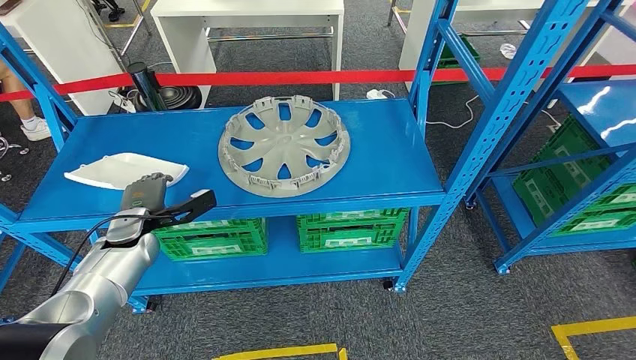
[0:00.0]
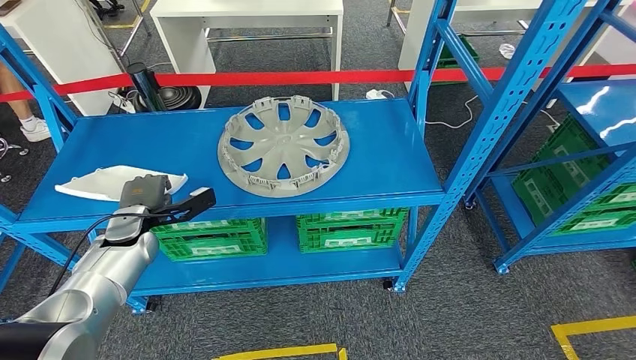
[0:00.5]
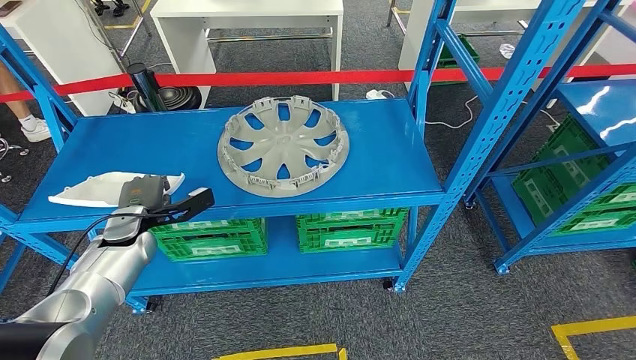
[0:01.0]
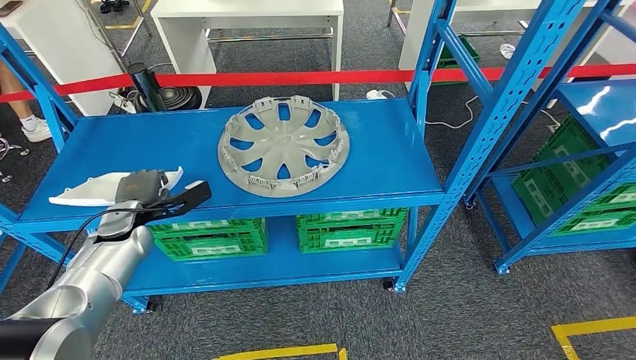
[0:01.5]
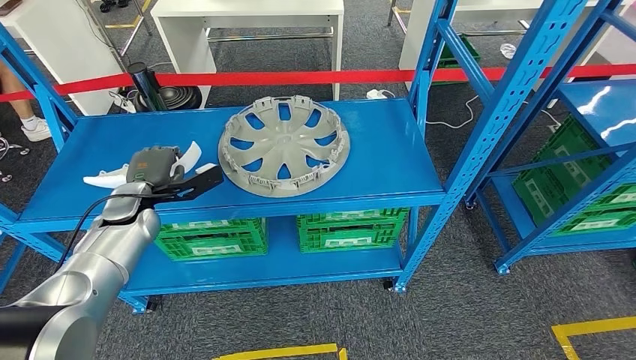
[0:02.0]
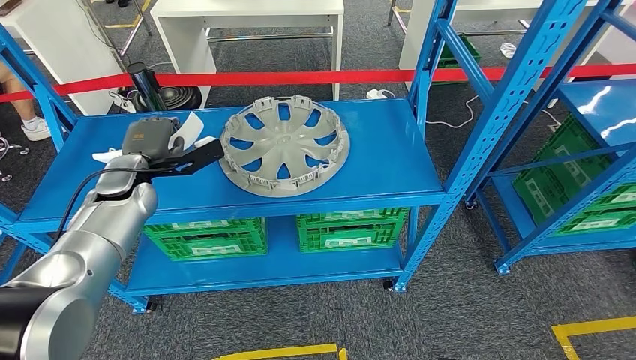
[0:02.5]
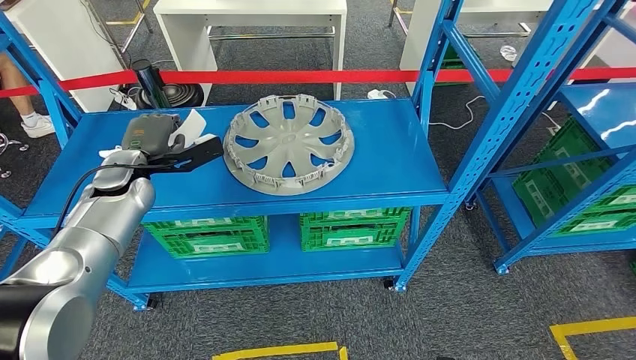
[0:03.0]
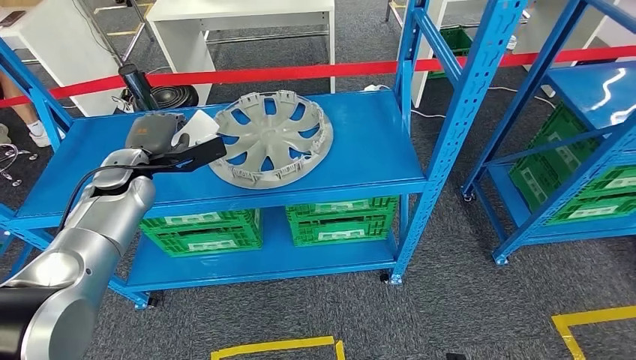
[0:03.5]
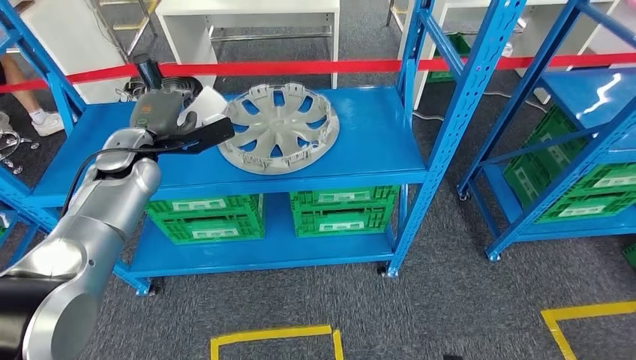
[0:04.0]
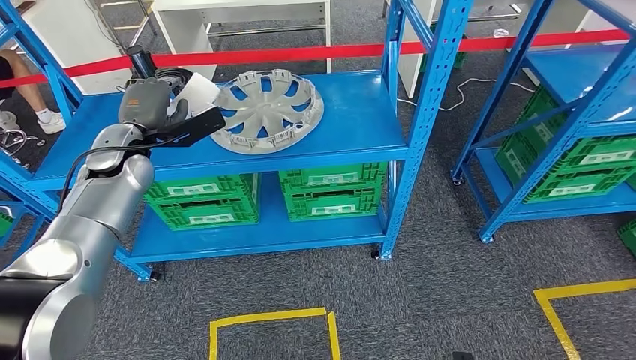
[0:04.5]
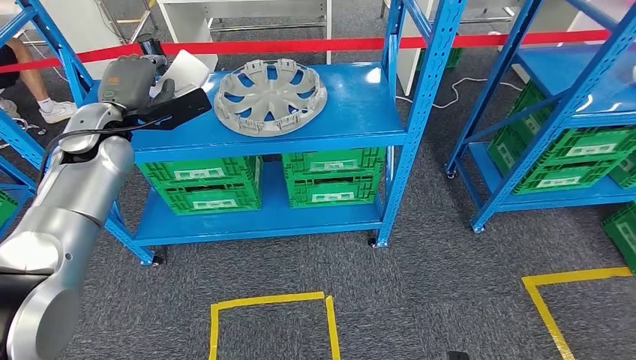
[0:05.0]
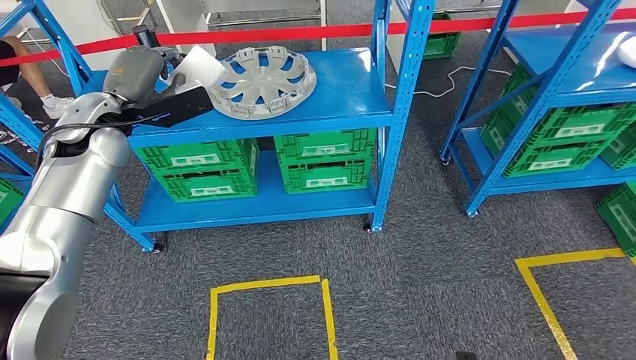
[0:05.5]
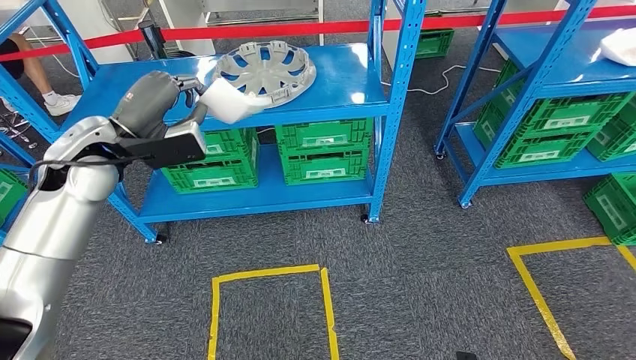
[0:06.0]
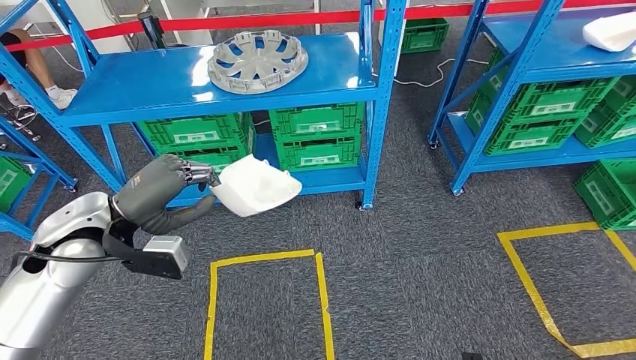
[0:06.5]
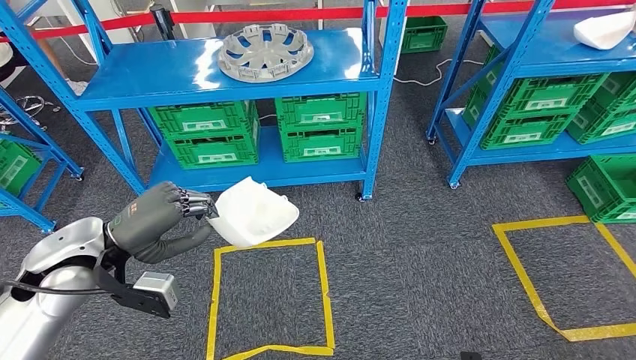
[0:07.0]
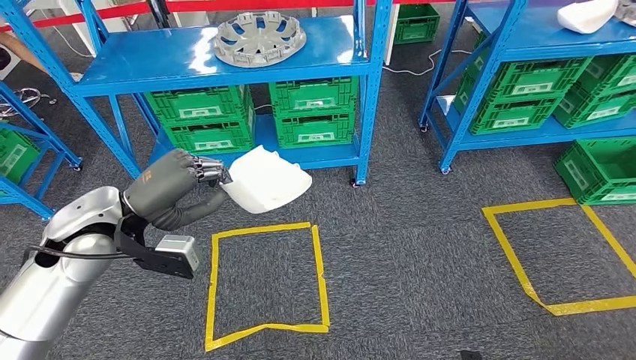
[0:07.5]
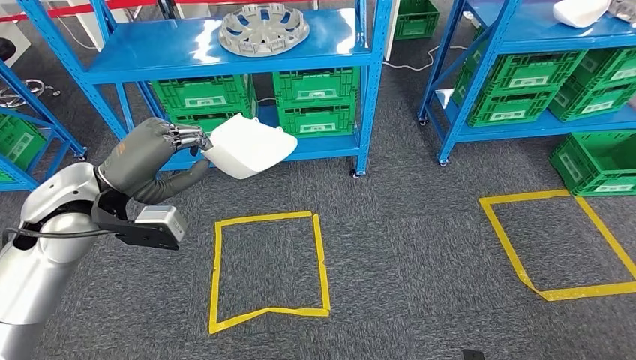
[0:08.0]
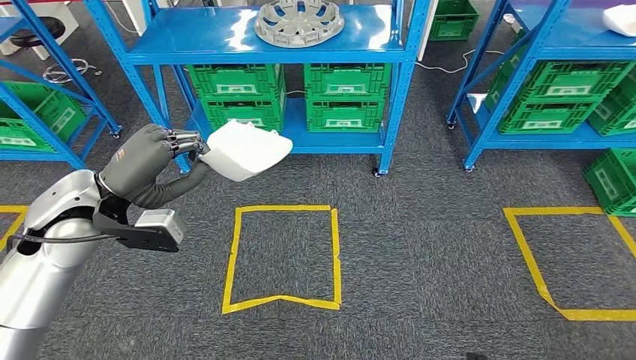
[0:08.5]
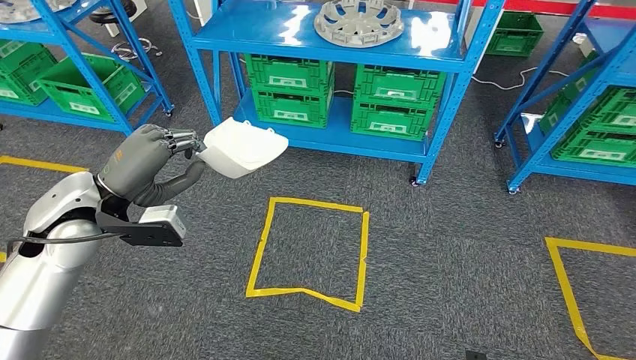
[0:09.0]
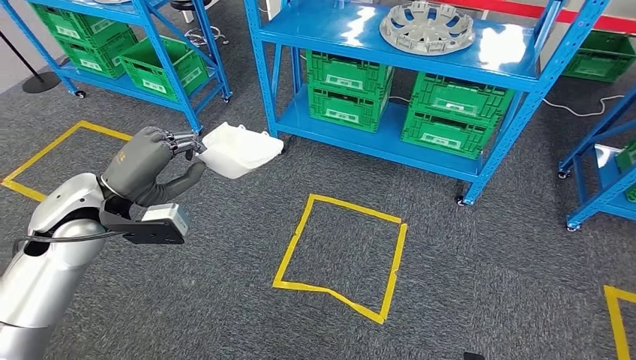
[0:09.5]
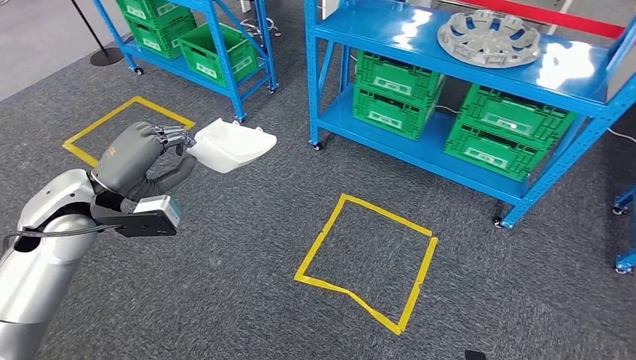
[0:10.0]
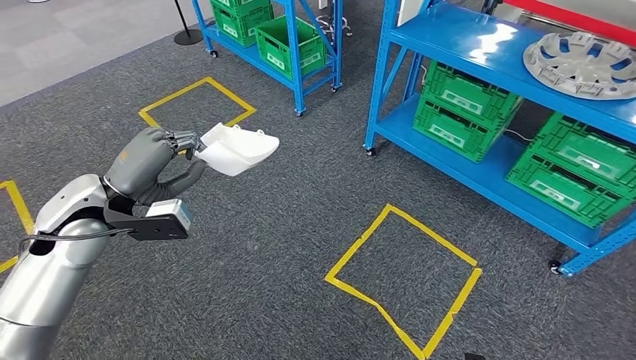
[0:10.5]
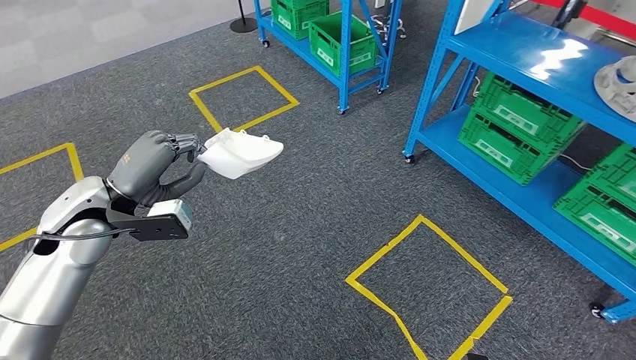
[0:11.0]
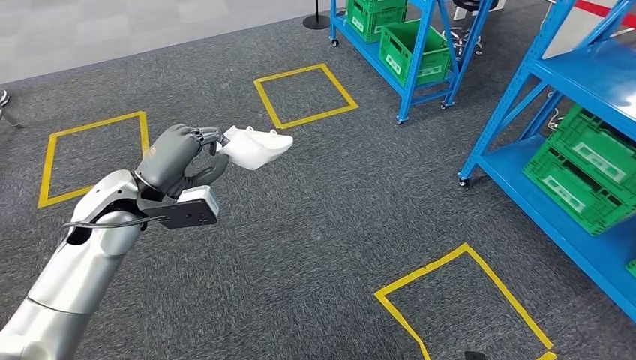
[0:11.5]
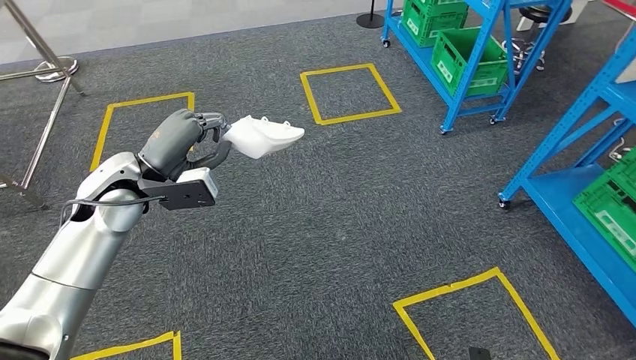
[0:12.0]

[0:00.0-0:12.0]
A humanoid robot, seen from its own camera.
Step, 0:00.0 to 0:03.0: Pick up the small component from the shelf.
0:00.0 to 0:02.0: The left hand changes place by some 5 cm.

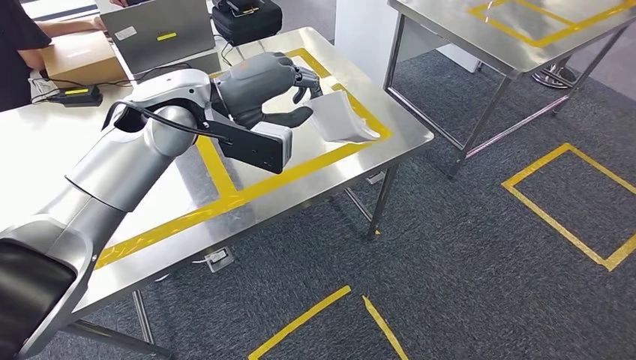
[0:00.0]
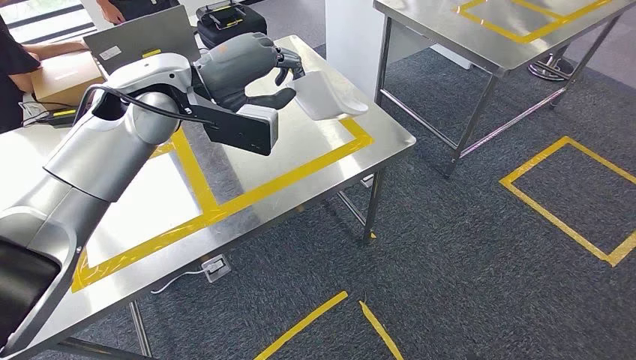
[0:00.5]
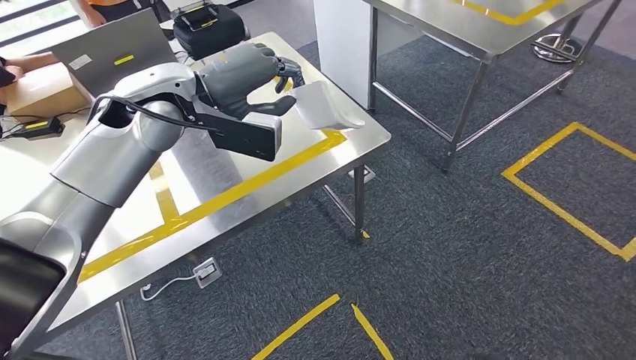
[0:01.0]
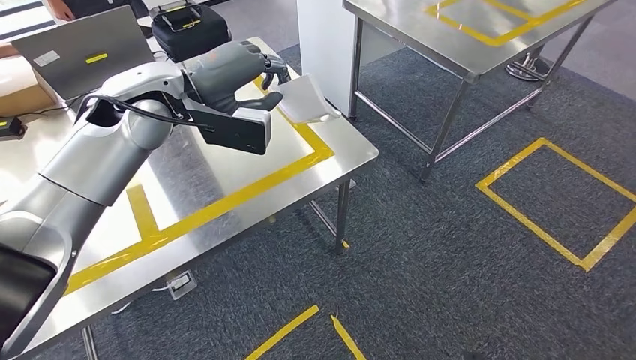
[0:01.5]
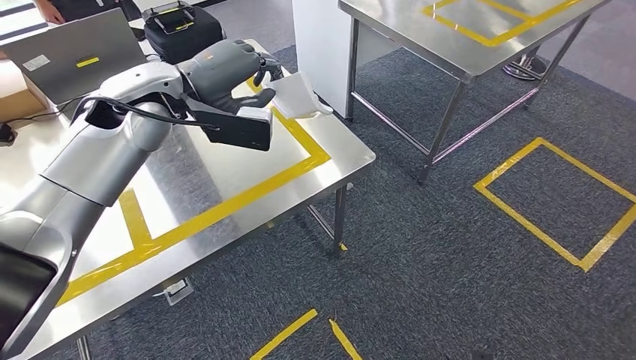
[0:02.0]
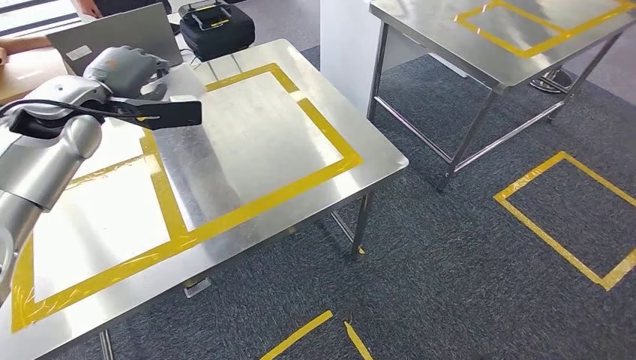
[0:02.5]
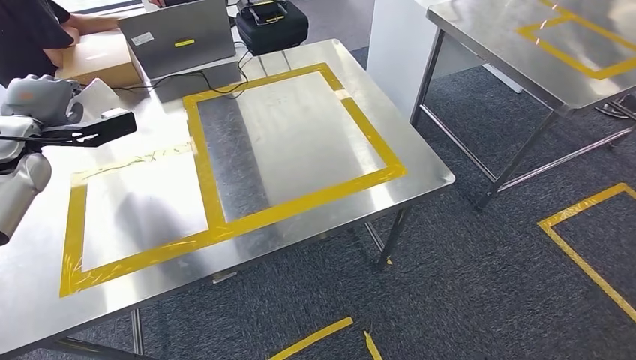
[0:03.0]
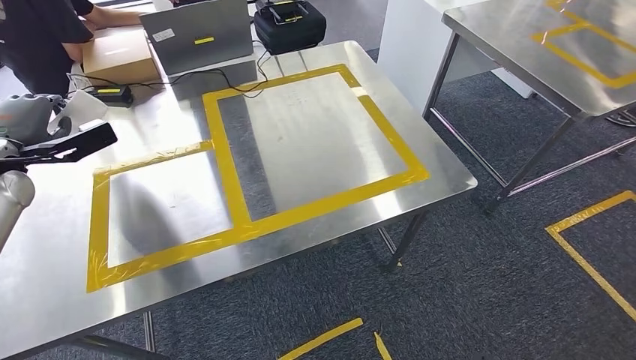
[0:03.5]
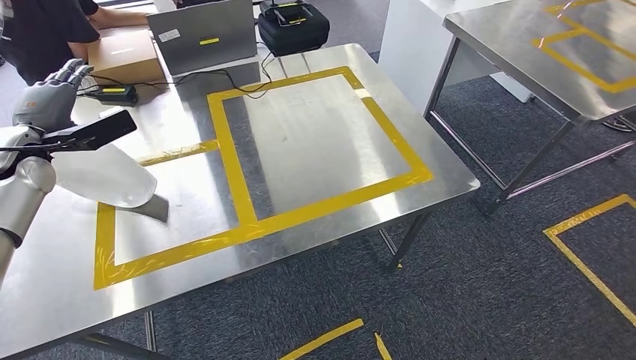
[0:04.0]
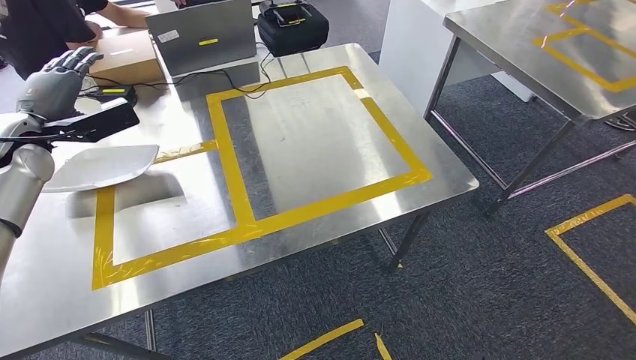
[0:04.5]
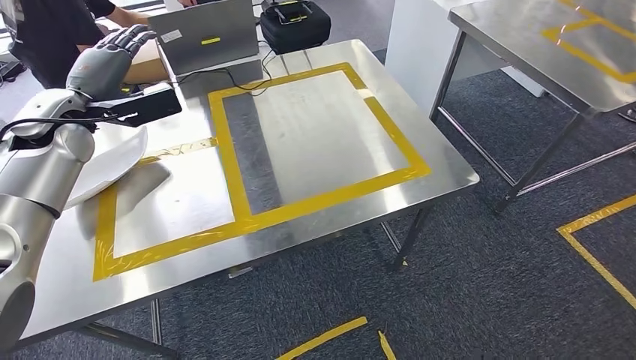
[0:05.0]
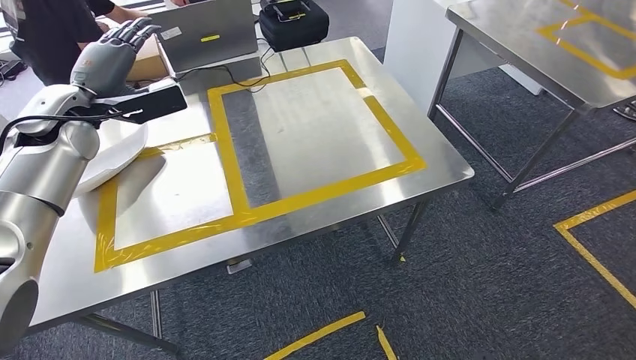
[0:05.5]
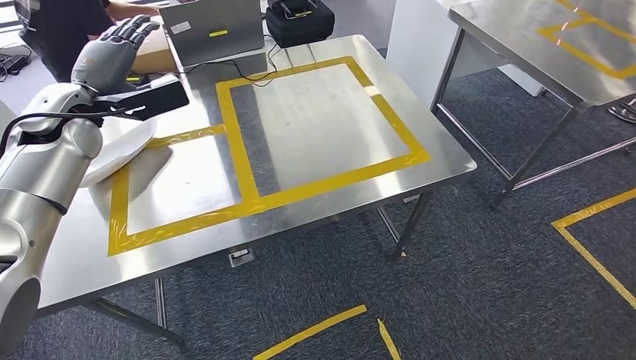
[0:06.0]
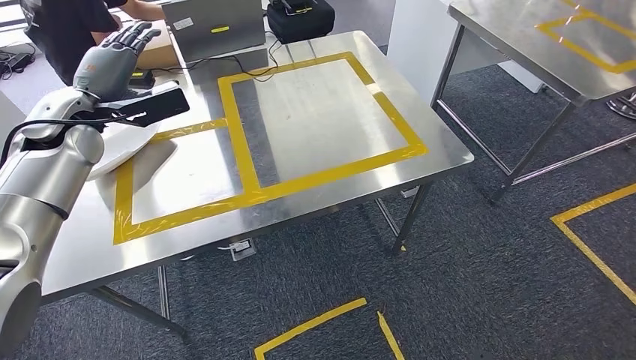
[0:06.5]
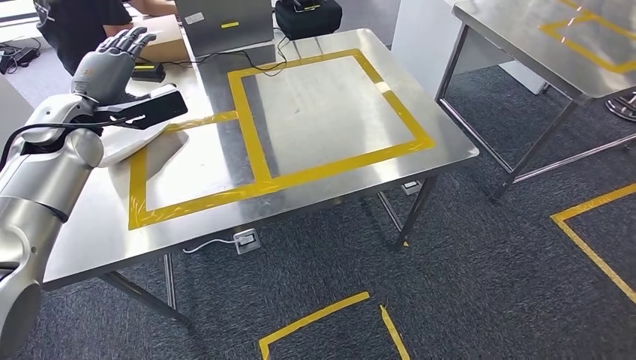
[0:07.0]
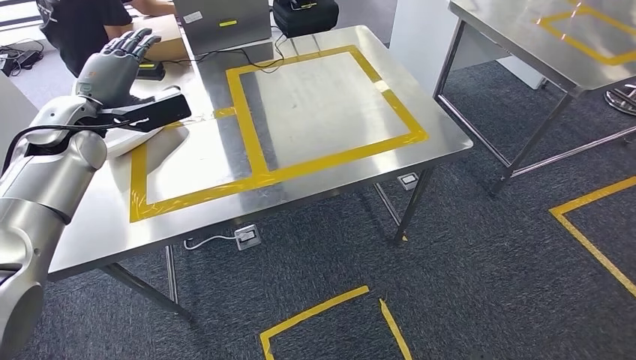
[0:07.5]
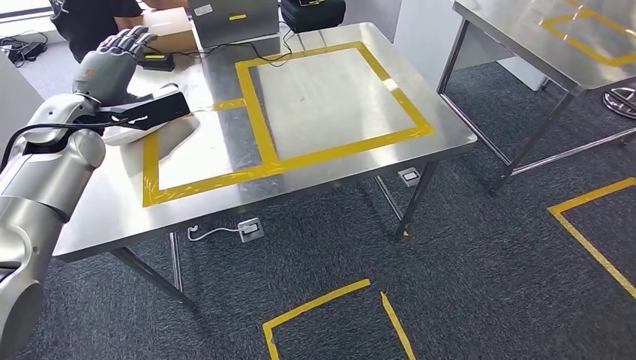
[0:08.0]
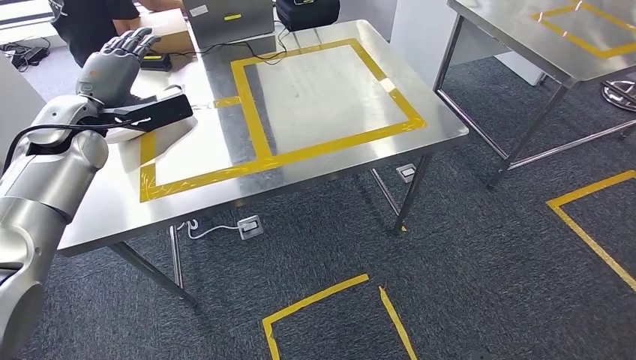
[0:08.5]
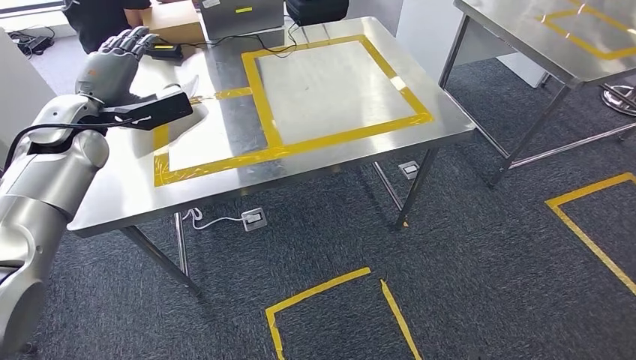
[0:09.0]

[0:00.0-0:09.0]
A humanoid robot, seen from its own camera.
Step, 0:00.5 to 0:04.5: Insert the small component into the corresponding slot on the workbench.
